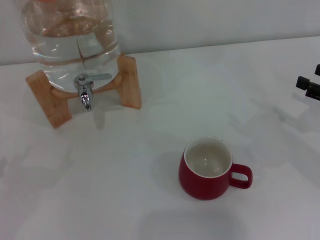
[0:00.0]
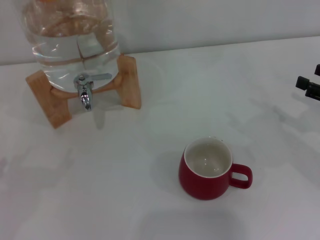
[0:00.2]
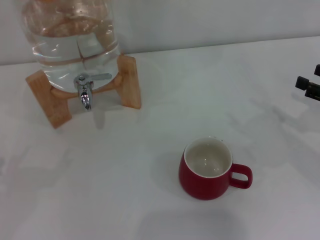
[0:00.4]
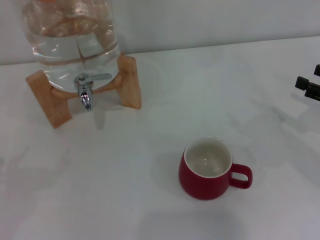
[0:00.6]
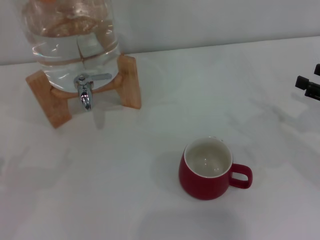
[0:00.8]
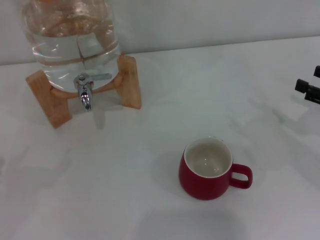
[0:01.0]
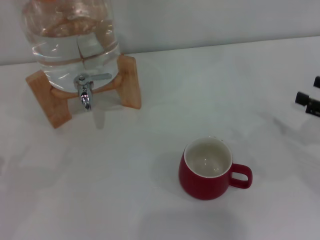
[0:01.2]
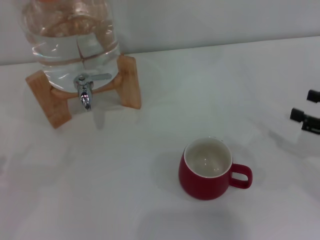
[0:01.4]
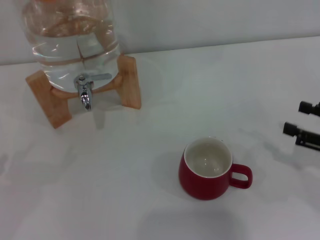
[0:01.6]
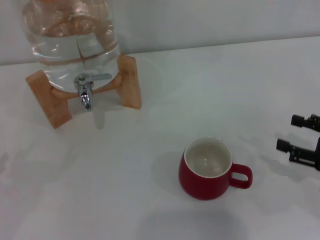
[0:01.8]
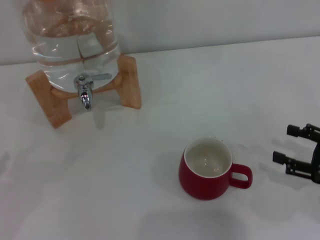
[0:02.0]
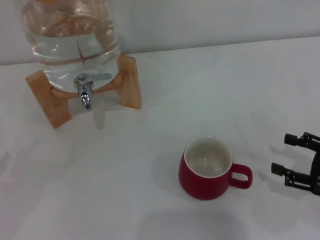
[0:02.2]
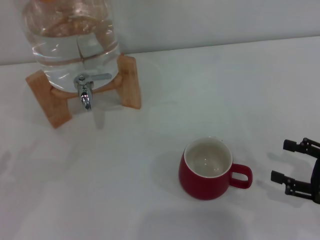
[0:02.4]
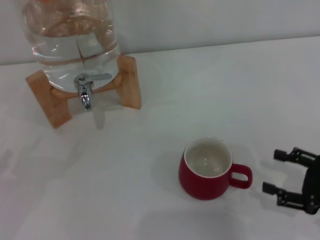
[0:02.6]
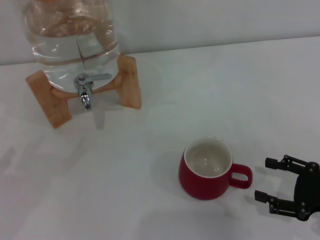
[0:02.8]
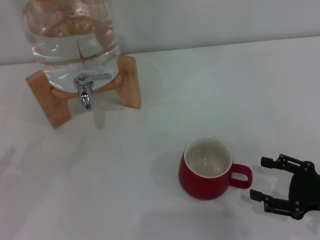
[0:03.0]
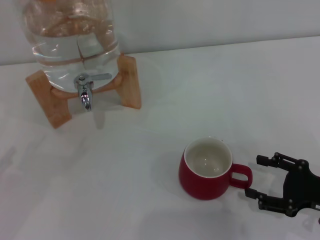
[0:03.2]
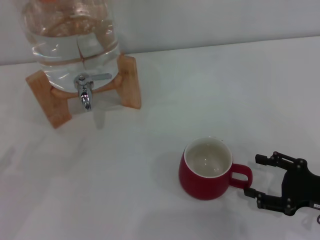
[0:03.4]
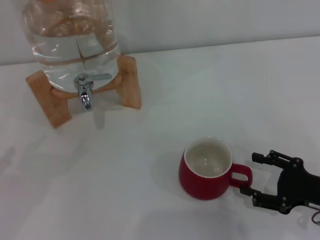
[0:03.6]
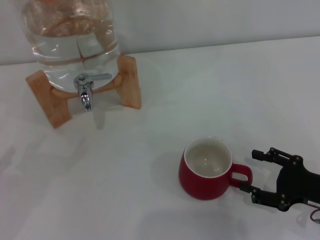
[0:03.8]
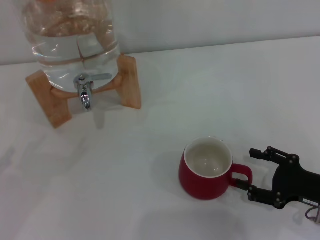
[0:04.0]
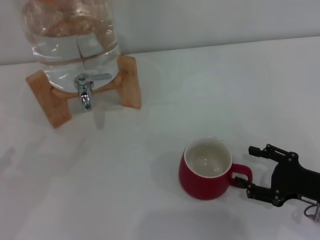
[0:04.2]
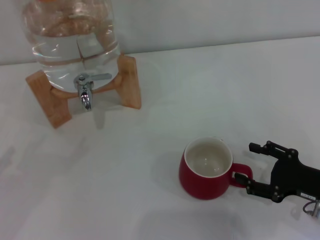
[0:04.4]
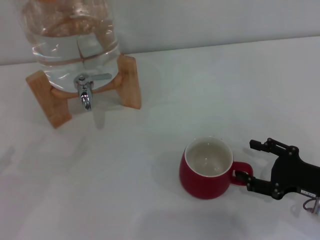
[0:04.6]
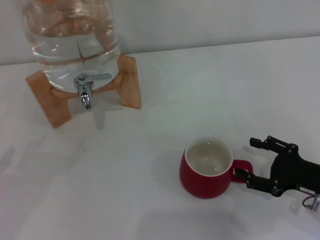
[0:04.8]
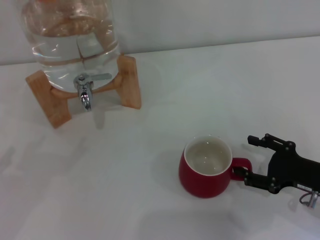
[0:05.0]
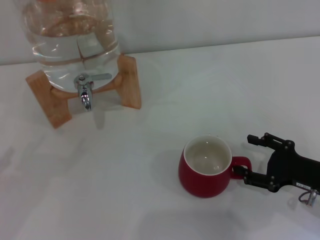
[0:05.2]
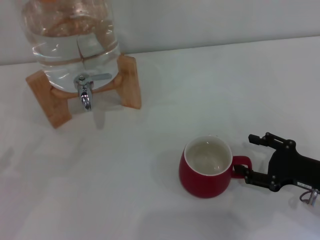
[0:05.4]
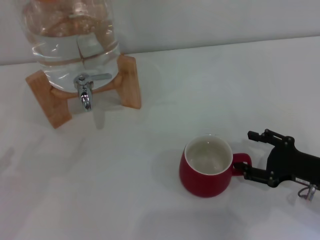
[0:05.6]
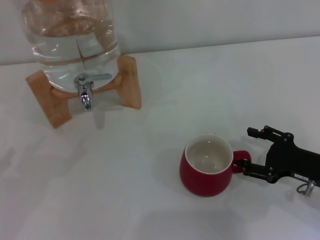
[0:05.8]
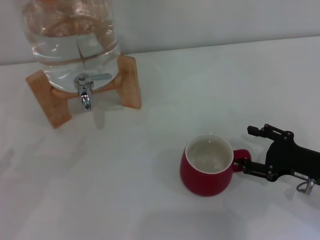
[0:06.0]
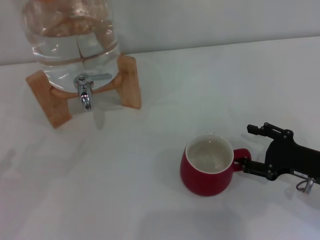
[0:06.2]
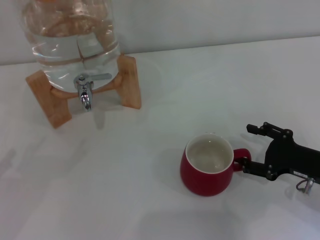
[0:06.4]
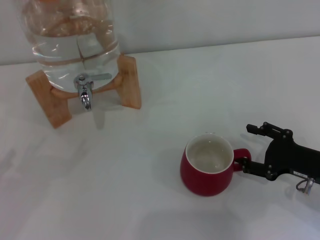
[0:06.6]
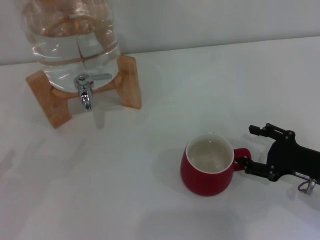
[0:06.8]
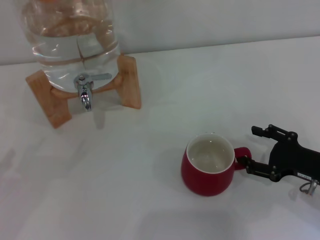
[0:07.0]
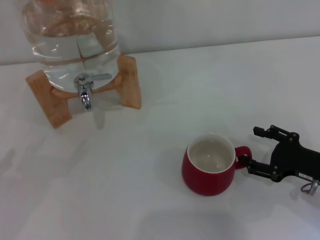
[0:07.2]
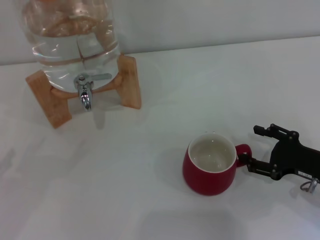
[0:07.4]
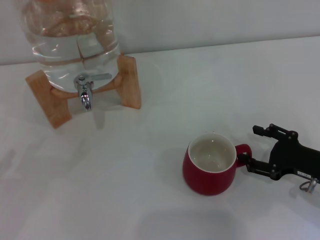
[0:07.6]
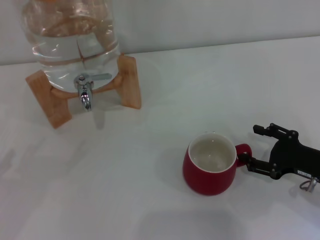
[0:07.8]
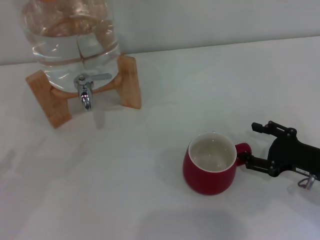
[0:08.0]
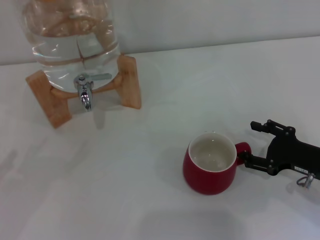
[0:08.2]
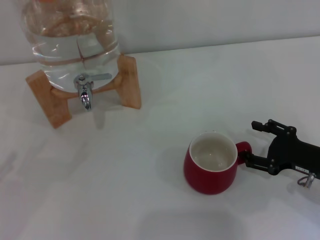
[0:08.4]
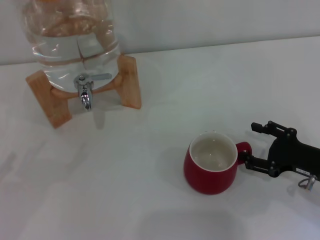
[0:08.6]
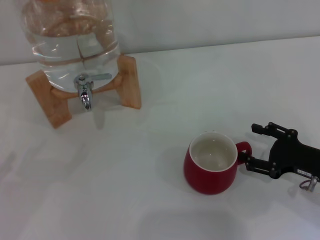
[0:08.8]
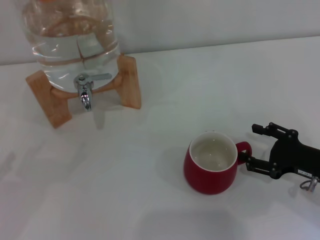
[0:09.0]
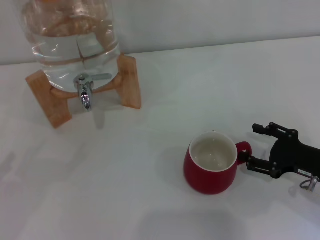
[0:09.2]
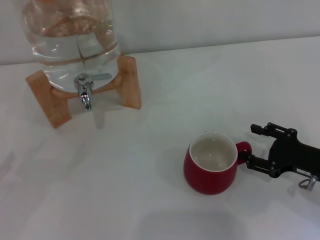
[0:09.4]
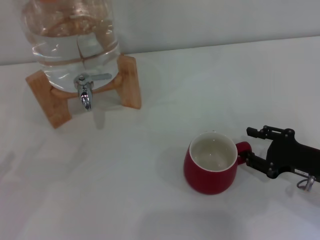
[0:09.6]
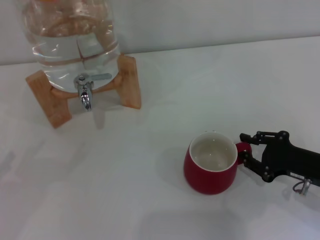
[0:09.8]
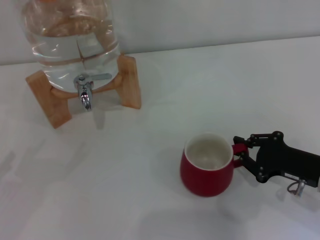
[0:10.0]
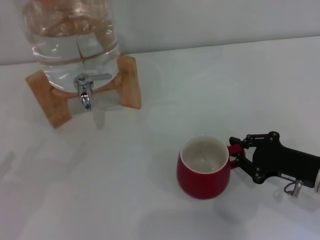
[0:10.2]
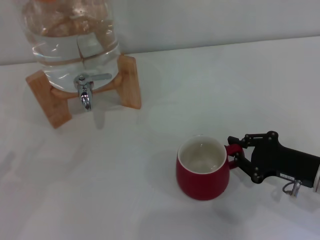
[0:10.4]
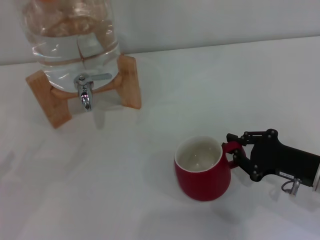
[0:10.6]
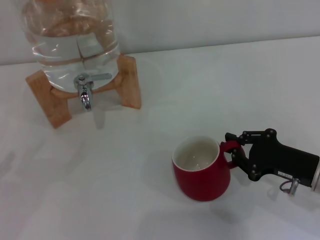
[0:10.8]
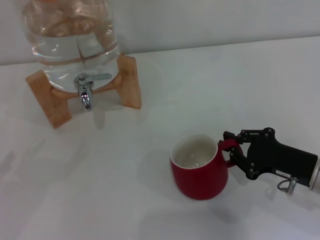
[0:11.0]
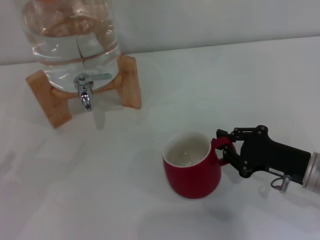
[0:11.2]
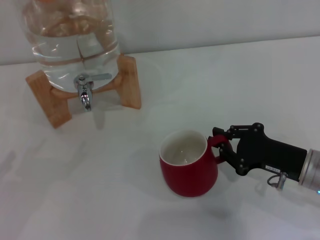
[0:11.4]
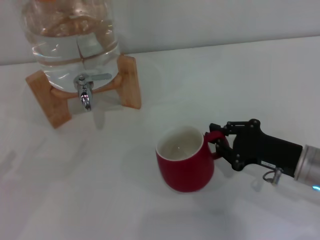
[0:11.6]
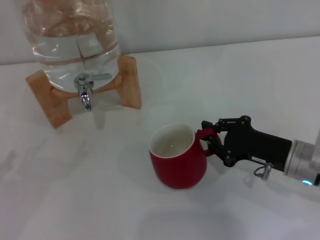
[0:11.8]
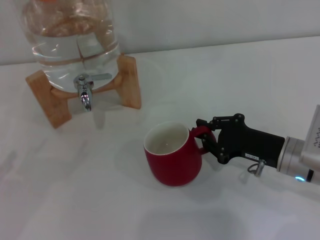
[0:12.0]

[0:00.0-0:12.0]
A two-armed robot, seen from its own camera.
Task of the whole recording: the right gripper pick up the red cup and place it horizontally under the faucet, the left gripper turn on the faucet to fill the cup, and then turn off the faucet.
0:00.0 to 0:01.6: The right gripper ends up roughly 5 cm from where it was.
0:01.6 to 0:03.0: The right gripper changes place by roughly 5 cm.
0:03.0 to 0:06.0: The grippers move only a little.
0:06.0 to 0:09.0: Neither gripper changes place.
0:09.0 to 0:10.4: The right gripper closes.
0:10.4 to 0:12.0: The right gripper shifts by approximately 5 cm.

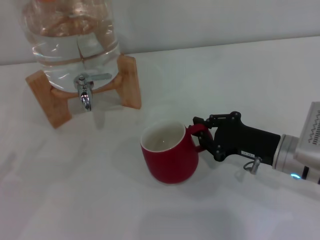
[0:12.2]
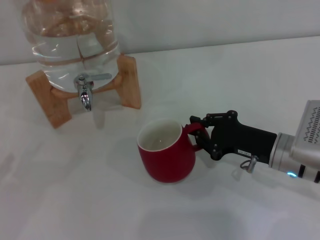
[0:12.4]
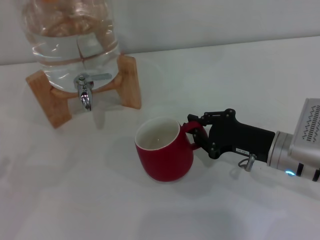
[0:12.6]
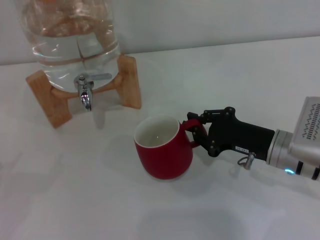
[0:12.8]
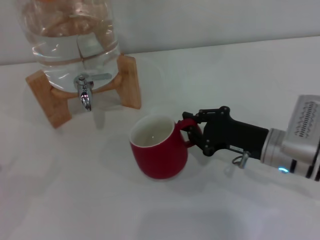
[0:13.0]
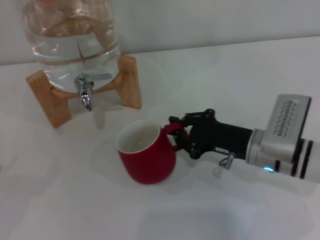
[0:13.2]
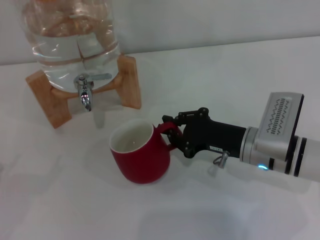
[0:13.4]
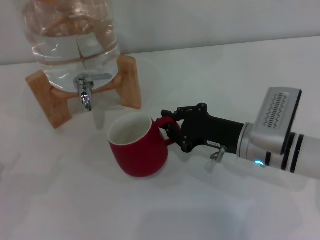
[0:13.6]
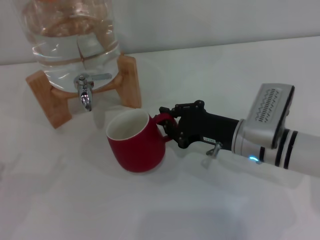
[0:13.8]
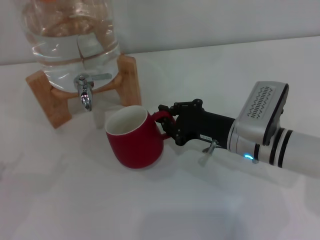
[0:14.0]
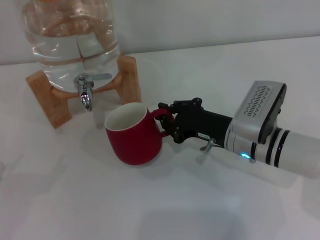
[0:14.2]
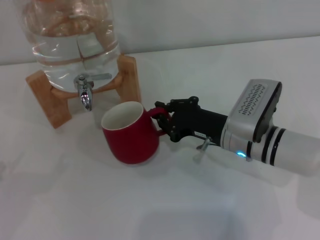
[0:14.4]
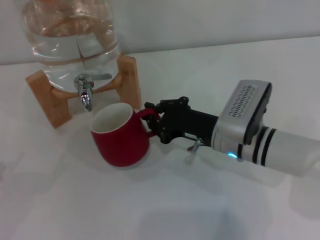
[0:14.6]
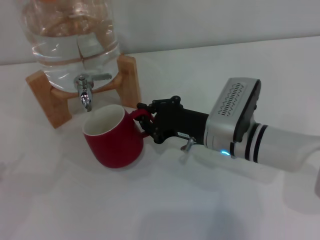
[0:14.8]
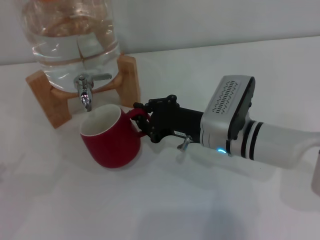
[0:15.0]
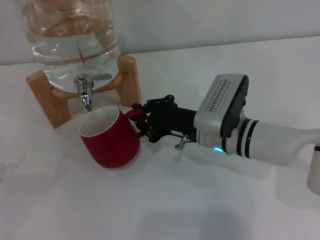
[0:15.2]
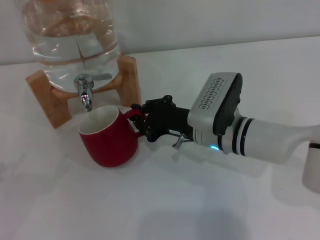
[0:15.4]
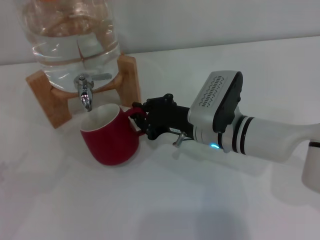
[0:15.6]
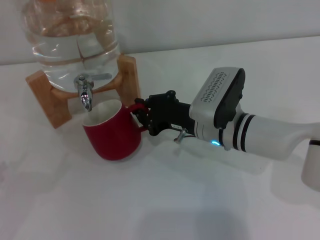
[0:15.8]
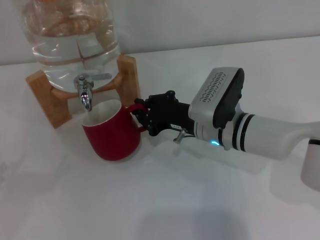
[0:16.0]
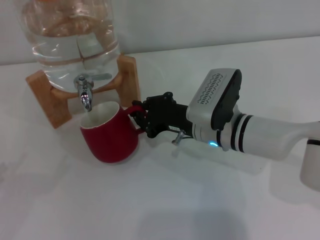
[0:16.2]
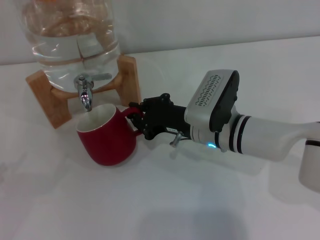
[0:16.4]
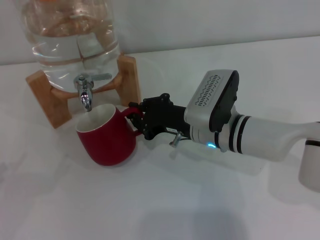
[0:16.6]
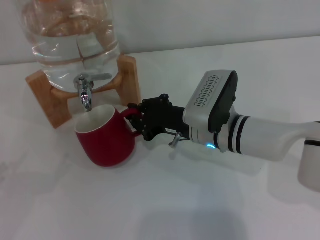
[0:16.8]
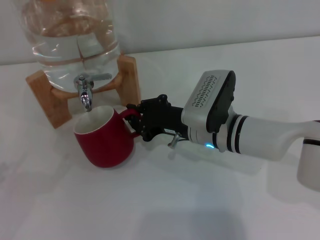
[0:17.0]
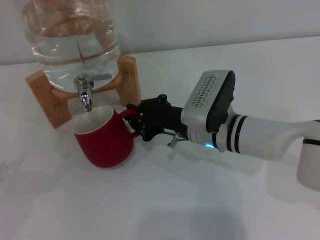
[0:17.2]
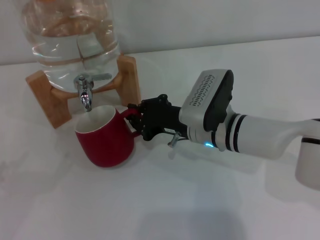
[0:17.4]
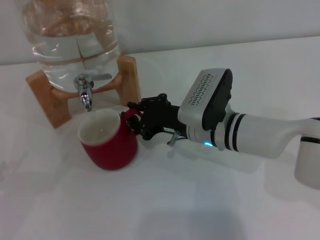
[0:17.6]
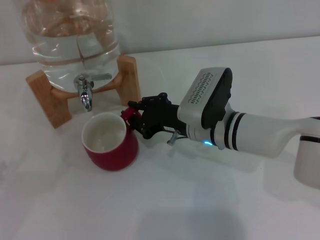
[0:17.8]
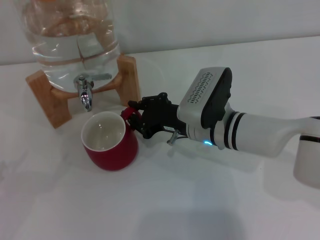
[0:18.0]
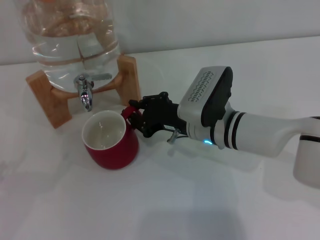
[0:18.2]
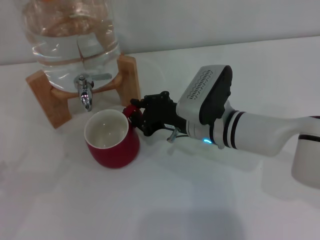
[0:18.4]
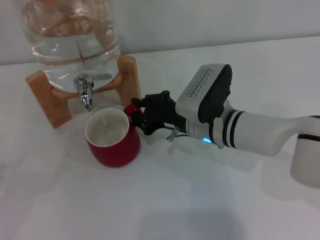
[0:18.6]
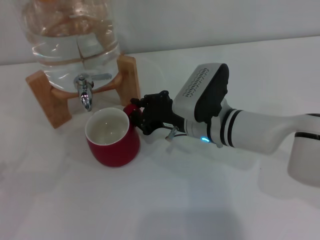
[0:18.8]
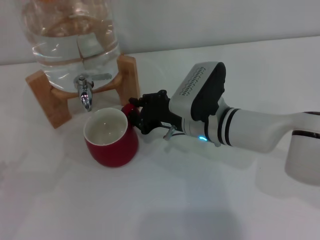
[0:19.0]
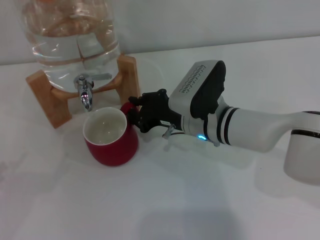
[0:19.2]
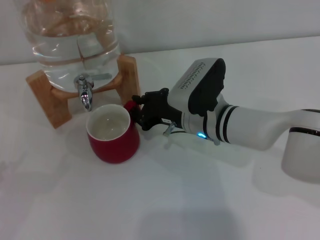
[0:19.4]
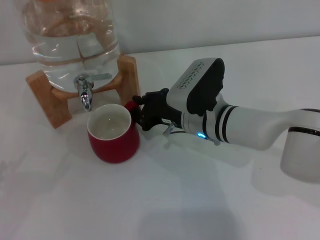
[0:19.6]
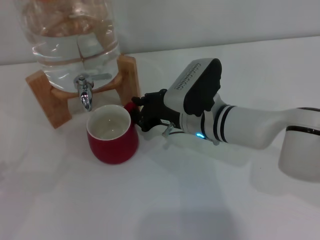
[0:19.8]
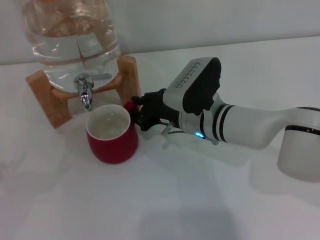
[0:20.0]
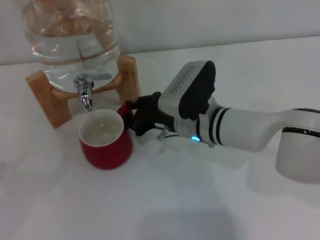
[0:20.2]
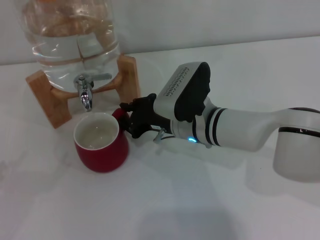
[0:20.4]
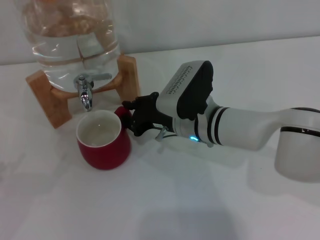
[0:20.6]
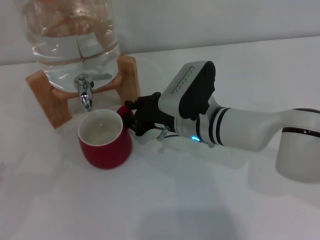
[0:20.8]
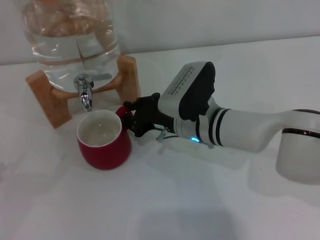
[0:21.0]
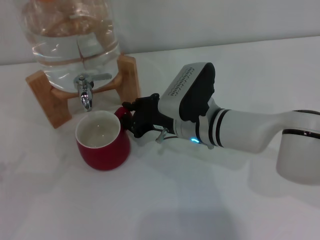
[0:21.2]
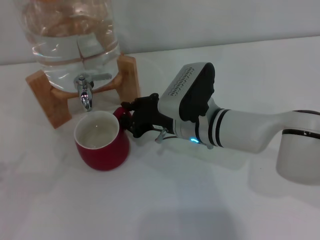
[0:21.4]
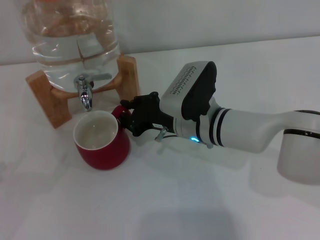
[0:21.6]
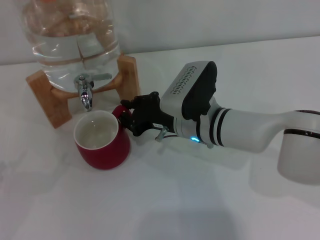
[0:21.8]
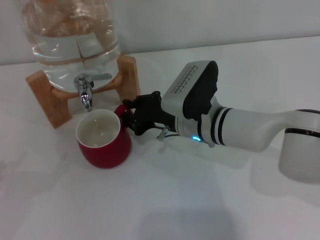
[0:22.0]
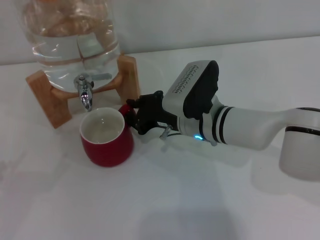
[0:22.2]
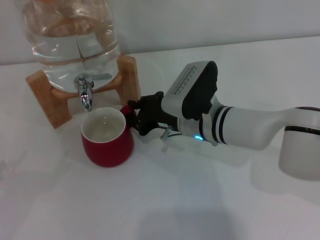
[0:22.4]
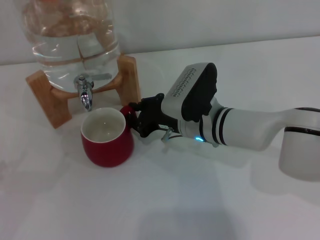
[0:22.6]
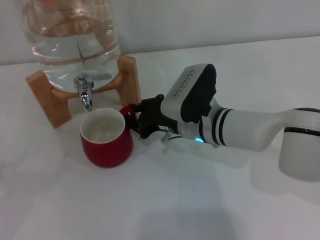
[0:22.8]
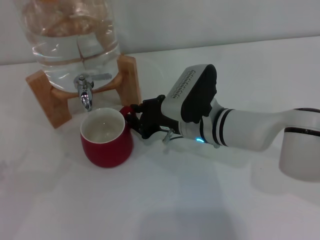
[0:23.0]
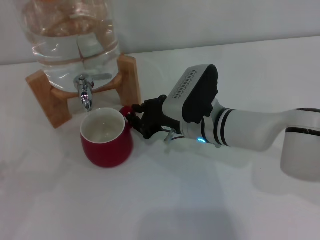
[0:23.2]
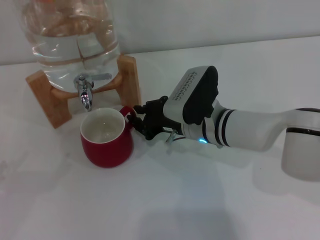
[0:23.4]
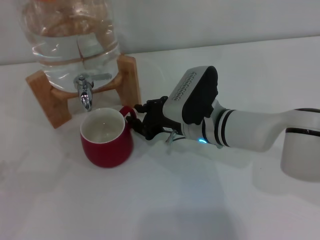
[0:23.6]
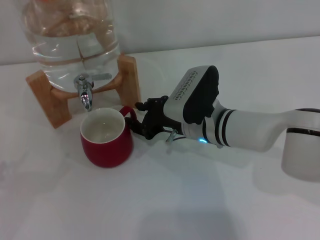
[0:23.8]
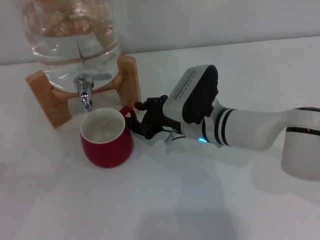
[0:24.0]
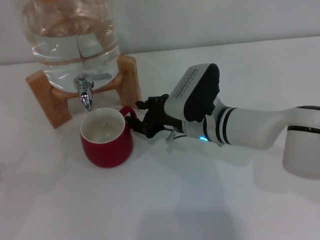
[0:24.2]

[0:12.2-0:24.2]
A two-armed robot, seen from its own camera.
Task of the whole recording: the right gripper pick up the red cup and place it horizontally under the faucet, the left gripper turn on the faucet to fill the cup, and then turn off the faucet.
0:12.2 to 0:13.8: The right gripper heads to the left, covering roughly 5 cm.
0:13.8 to 0:15.2: The right gripper heads to the left, covering roughly 5 cm.
0:15.2 to 0:16.6: Neither gripper changes place.
0:16.6 to 0:18.2: Neither gripper changes place.
0:18.2 to 0:21.2: There are only small adjustments of the grippers.
0:21.2 to 0:22.6: Both grippers stay put.
0:22.6 to 0:24.2: Neither gripper changes place.
